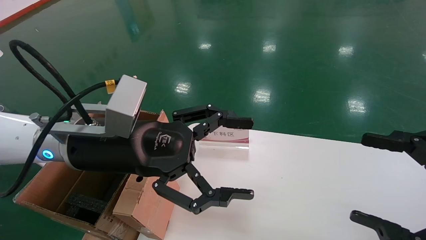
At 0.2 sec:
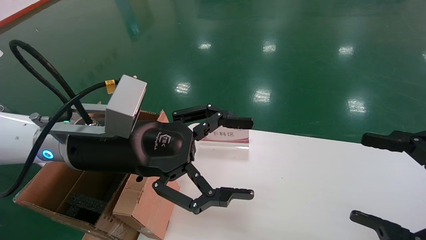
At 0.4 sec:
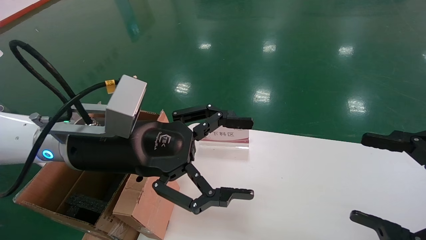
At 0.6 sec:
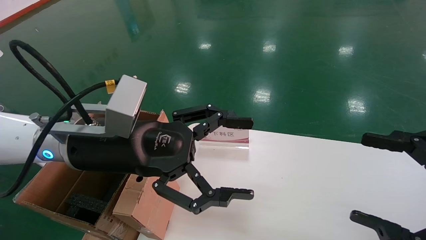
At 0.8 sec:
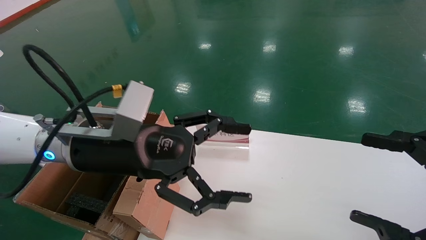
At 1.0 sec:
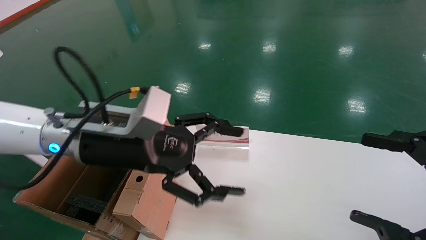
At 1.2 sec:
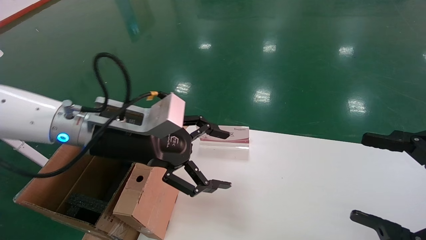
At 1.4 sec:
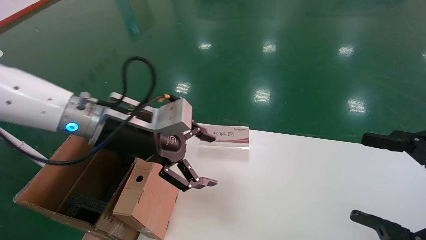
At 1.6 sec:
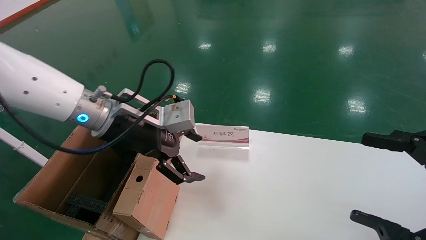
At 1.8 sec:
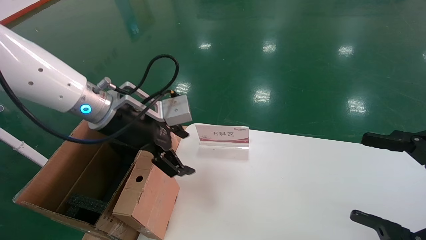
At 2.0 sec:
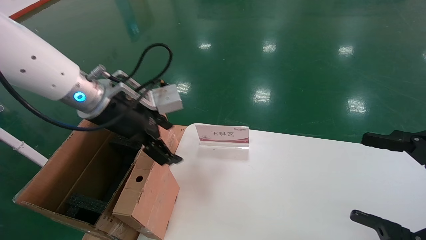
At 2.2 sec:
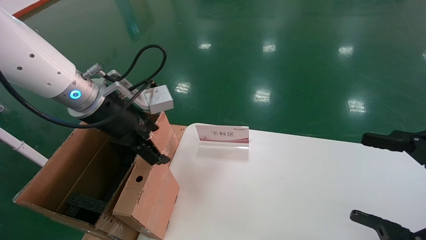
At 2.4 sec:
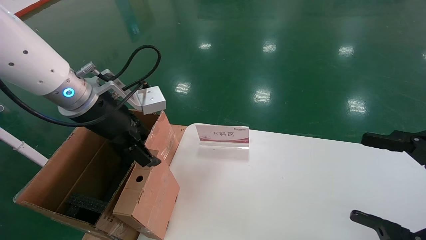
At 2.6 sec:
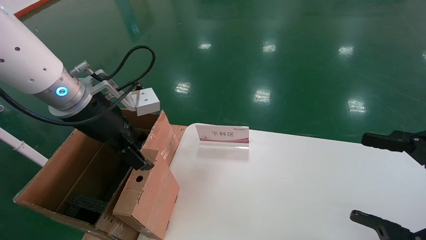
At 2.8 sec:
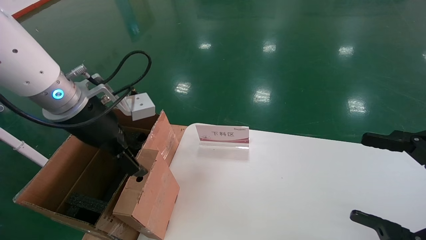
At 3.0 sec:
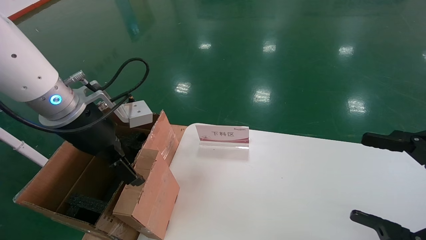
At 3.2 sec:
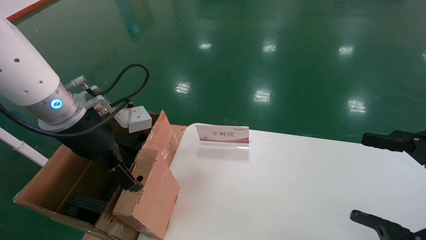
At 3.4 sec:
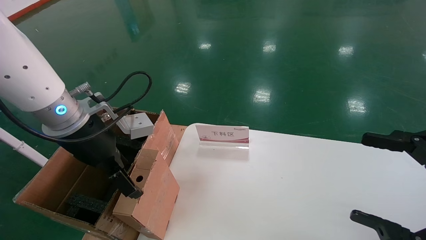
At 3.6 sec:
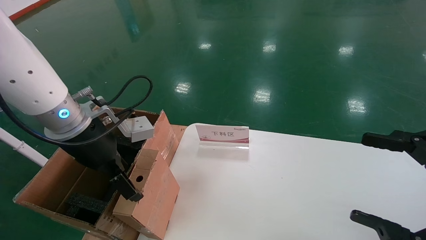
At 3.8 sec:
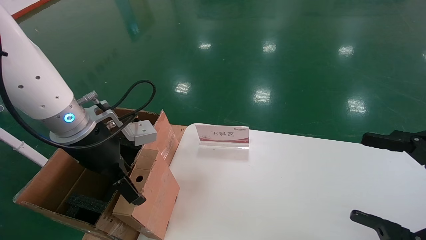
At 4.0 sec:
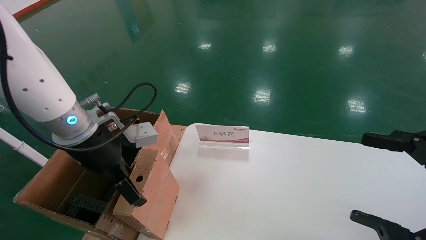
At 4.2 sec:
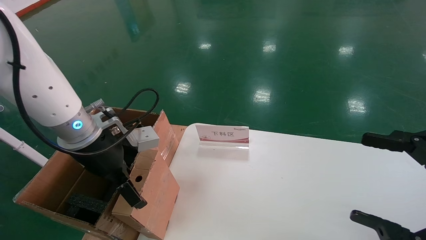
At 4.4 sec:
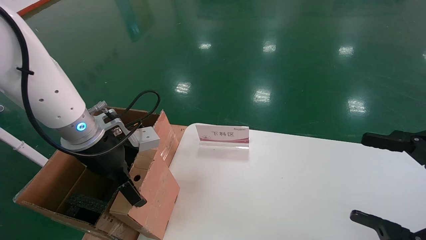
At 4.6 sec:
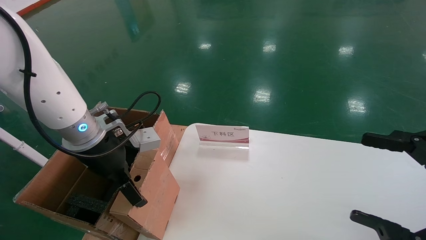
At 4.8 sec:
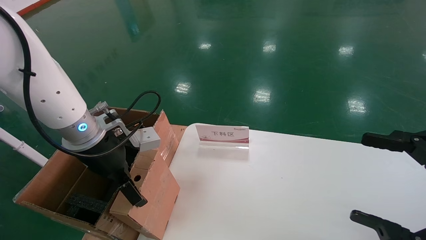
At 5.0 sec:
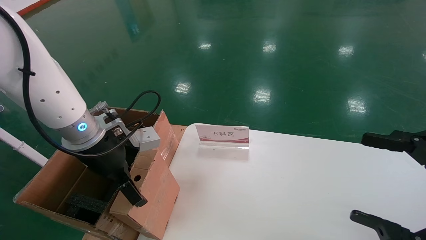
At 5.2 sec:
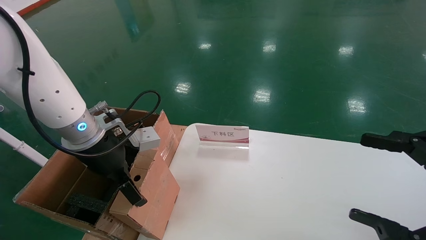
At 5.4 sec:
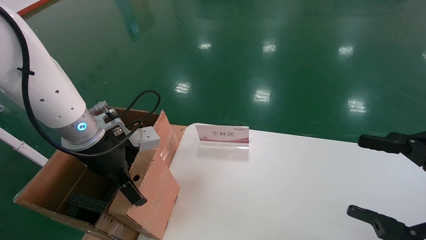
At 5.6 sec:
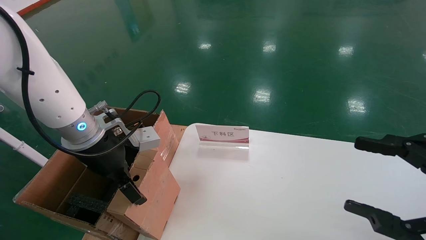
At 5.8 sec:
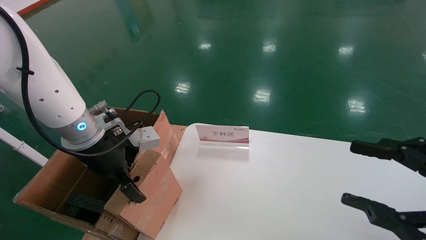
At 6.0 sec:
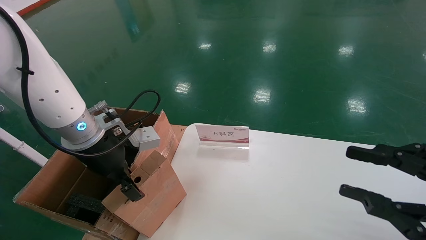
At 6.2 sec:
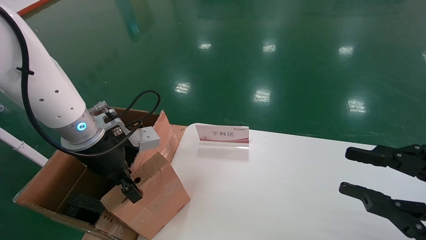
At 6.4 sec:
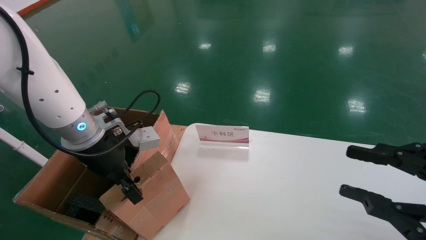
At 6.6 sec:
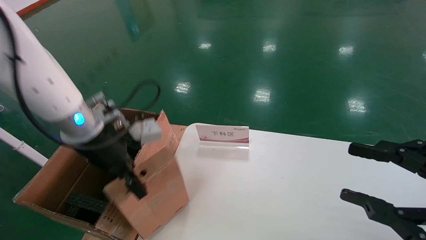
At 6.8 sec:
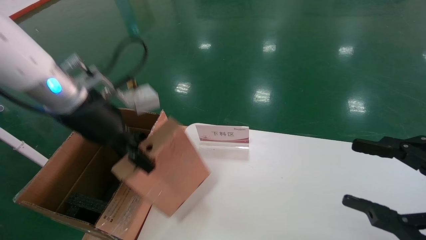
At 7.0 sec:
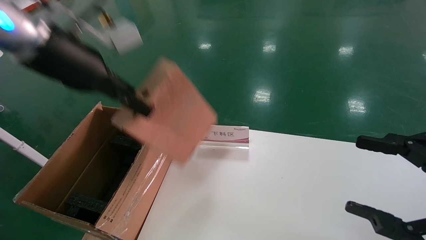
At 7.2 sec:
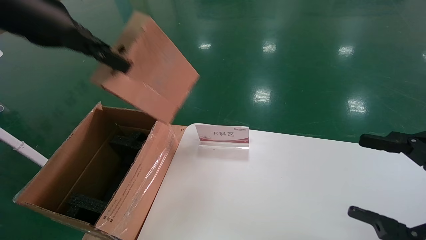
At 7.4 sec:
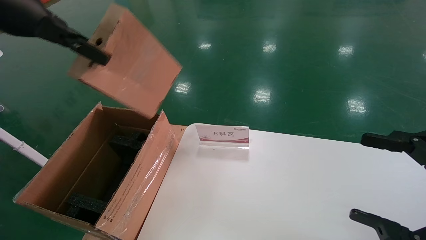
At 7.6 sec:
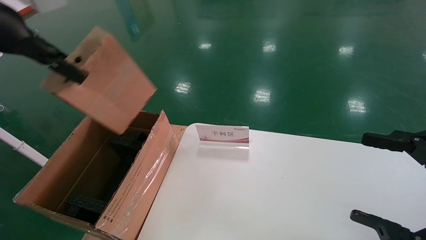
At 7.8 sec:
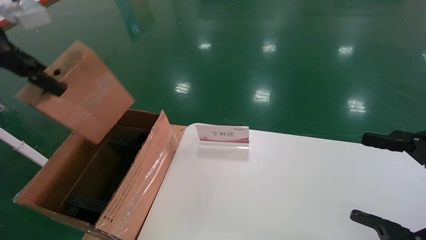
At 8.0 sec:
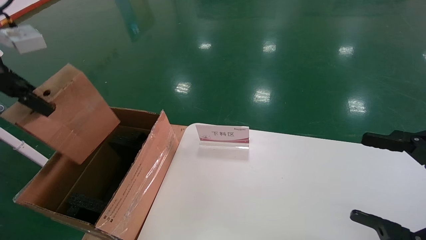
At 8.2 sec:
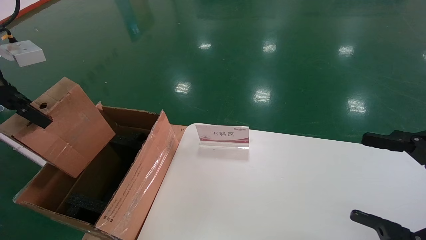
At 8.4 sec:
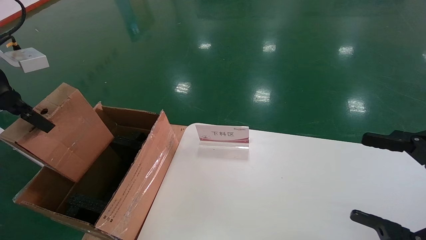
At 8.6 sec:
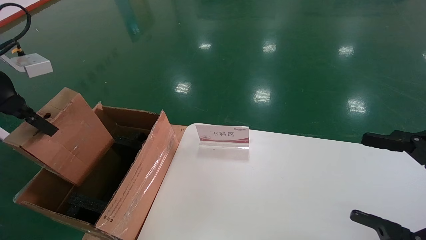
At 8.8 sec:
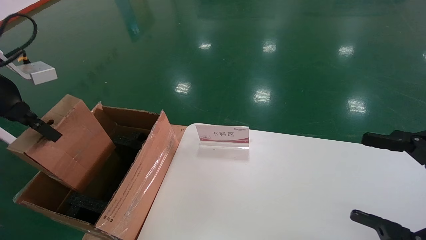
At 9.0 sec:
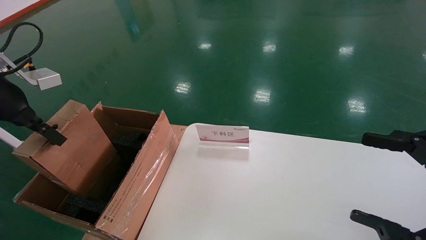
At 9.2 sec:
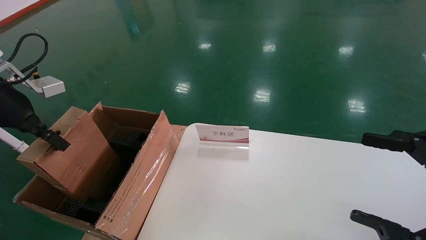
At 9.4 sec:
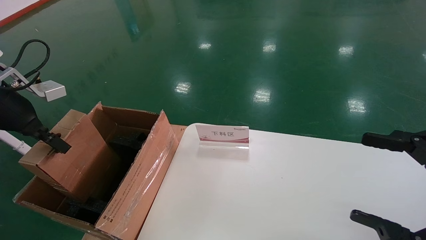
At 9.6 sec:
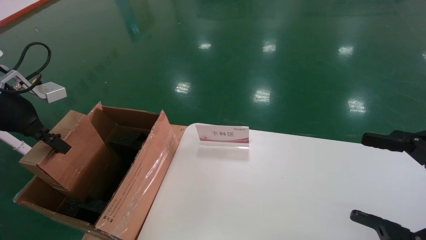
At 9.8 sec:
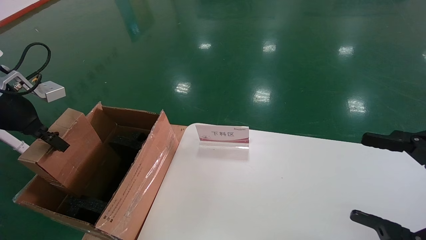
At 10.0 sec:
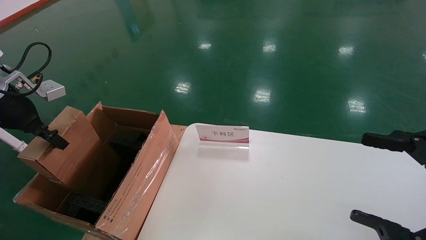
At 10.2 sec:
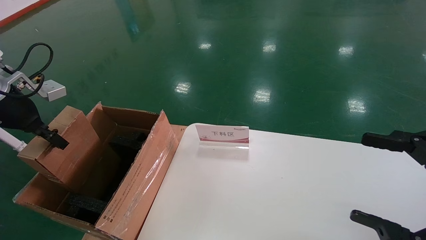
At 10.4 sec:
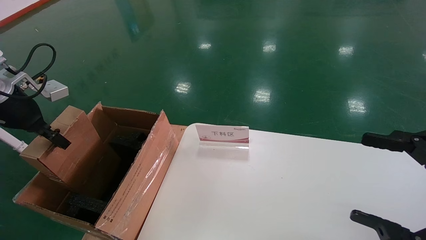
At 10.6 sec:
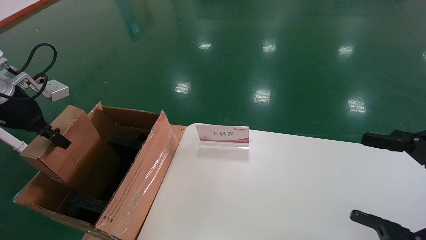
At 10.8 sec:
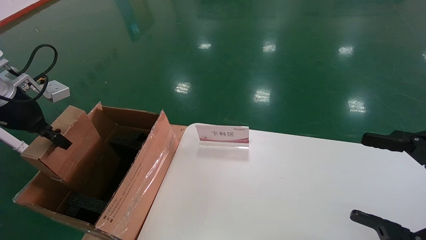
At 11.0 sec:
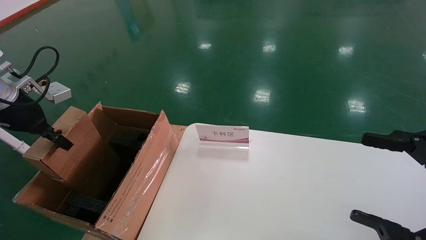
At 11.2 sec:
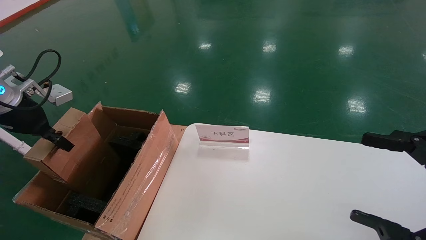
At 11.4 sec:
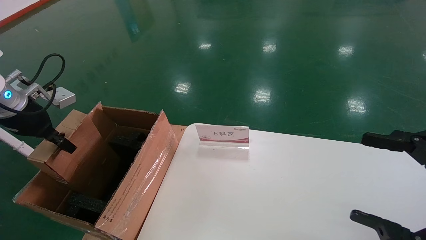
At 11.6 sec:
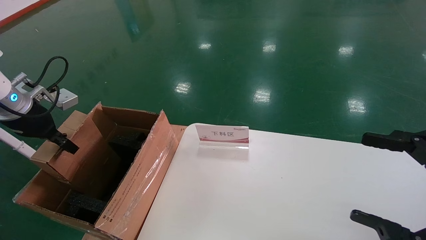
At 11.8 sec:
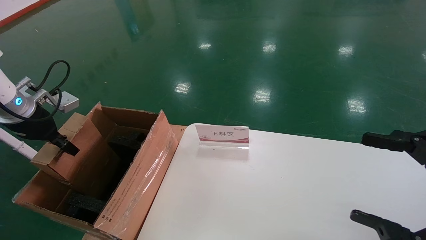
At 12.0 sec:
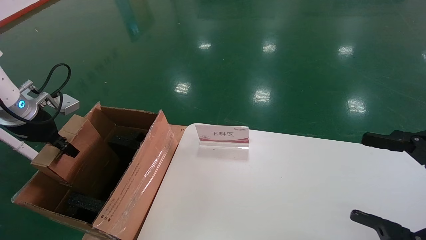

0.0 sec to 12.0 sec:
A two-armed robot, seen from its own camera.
Task of the whole recording: pick up the small cardboard box and load it into the large cardboard box.
Step, 0.8 sec to 6.4 sec: Pick up the mouse and power cord box.
0.0 sec to 1.6 sec: The left gripper shifts roughly 5 cm forward.
1.6 sec to 3.0 sec: The left gripper ends up roughly 5 cm from where it was.
3.0 sec to 4.4 sec: The left gripper heads downward, covering approximately 5 cm.
4.4 sec to 6.0 sec: The left gripper closes its fingers, while the right gripper closes its fingers.
6.0 sec to 7.6 sec: The left gripper heads upward and to the left, covering about 25 cm, and closes its fingers. The right gripper opens its fingers.
7.6 sec to 9.0 sec: The left gripper goes some 10 cm downward and to the left.
9.0 sec to 10.4 sec: The left gripper moves approximately 5 cm.
10.4 sec to 12.0 sec: The left gripper heads downward, covering approximately 5 cm.

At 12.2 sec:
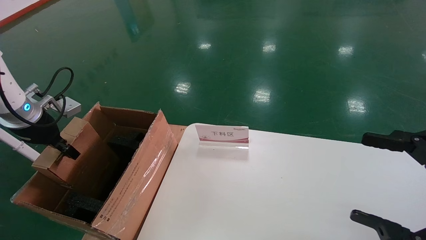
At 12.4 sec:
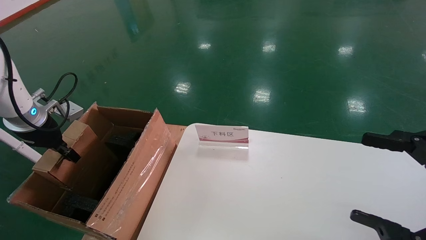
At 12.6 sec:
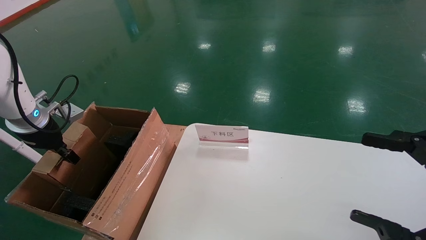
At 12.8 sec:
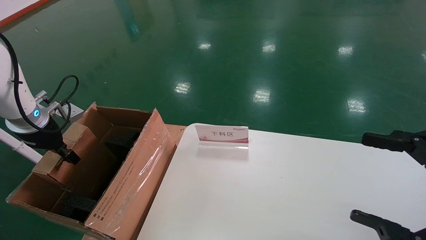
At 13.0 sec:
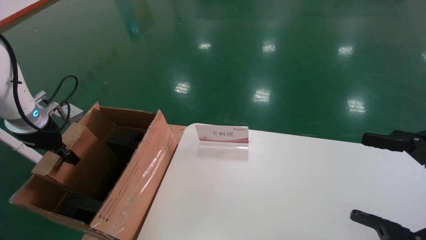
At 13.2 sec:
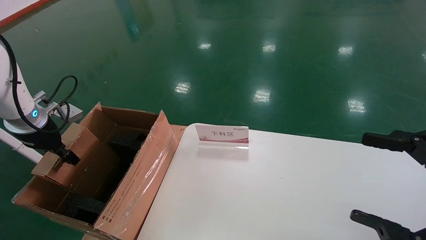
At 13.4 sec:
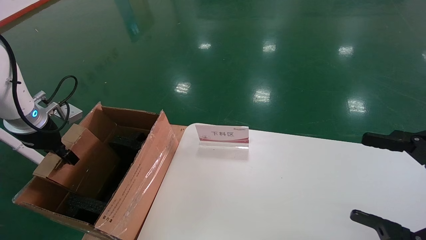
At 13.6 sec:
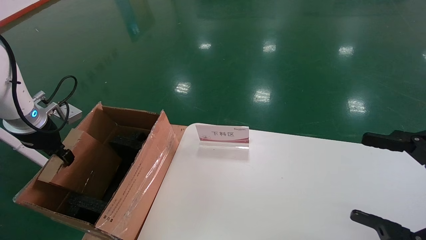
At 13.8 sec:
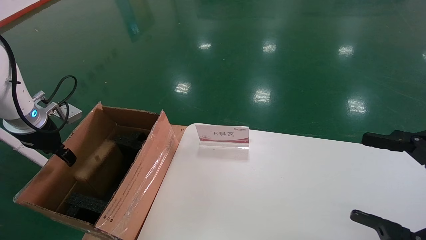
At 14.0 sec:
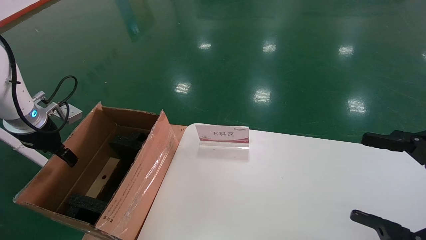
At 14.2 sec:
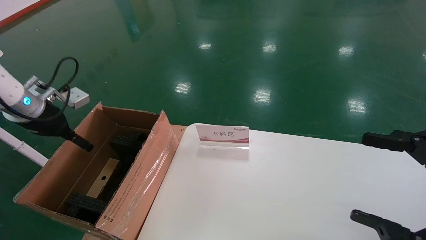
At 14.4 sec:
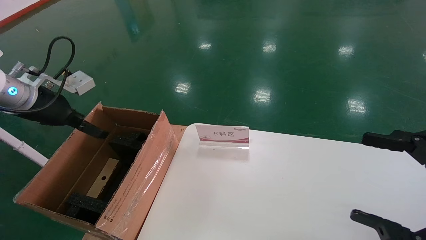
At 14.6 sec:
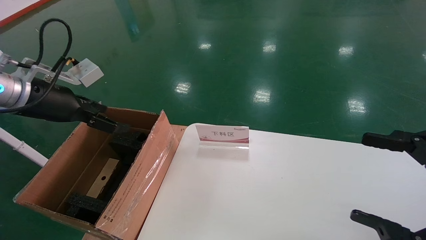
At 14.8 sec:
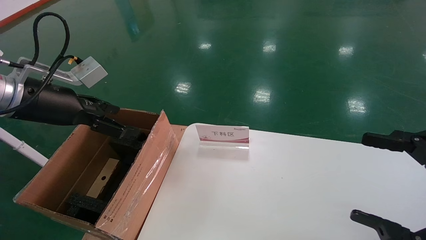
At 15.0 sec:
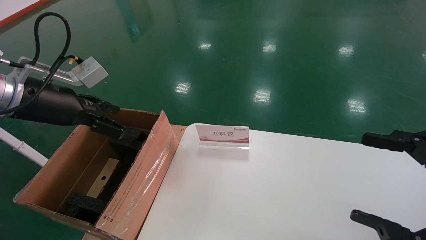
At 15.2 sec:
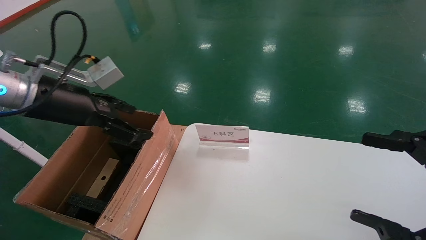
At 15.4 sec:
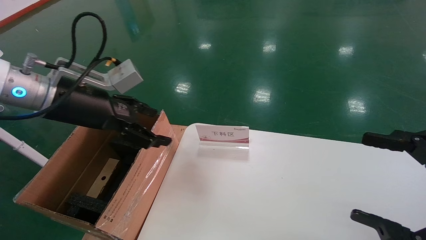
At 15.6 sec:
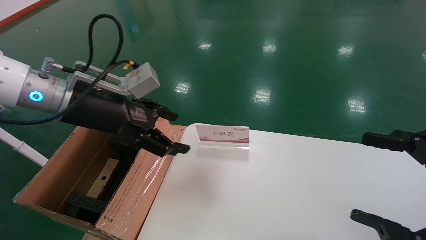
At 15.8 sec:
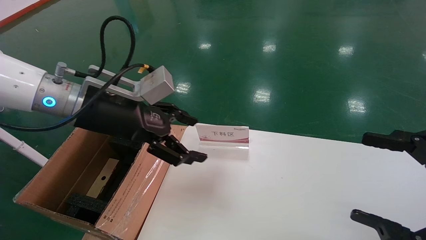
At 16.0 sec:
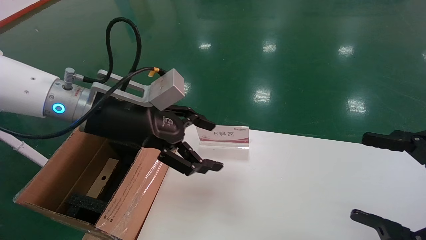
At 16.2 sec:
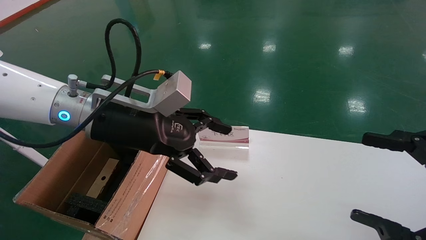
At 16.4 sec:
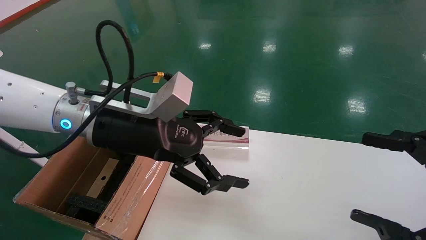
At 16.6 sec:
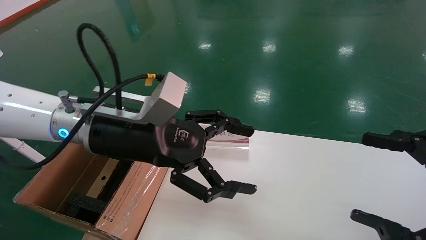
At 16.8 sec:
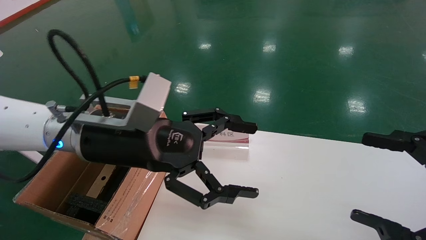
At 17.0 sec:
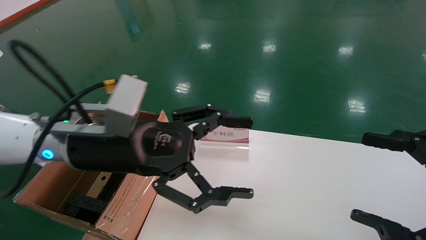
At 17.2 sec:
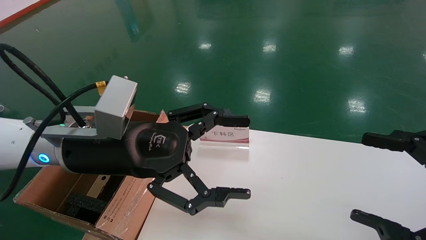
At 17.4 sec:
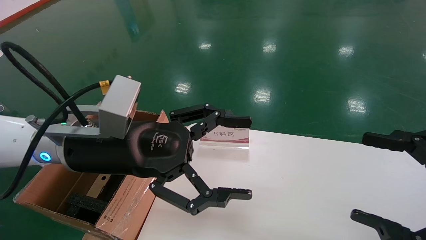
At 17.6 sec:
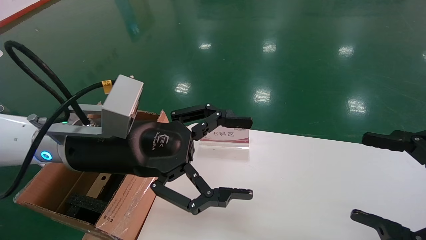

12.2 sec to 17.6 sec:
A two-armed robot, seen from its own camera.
Task of the whole recording: pick up the small cardboard box and load it into the large cardboard box.
12.2 sec to 13.6 sec: The left gripper opens its fingers.
13.6 sec to 15.0 sec: The left gripper moves to the right, upward and backward, some 15 cm, and opens.
15.0 sec to 16.2 sec: The left gripper heads to the right, covering roughly 15 cm.
